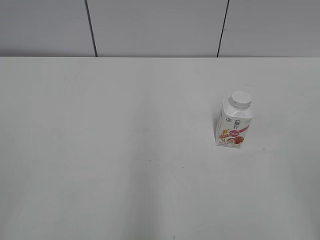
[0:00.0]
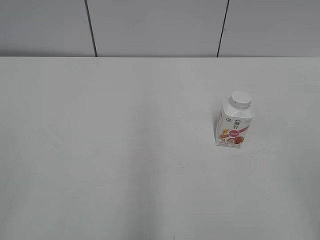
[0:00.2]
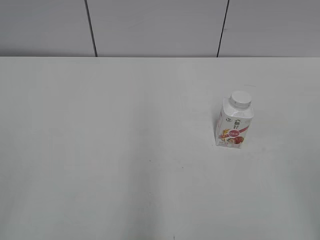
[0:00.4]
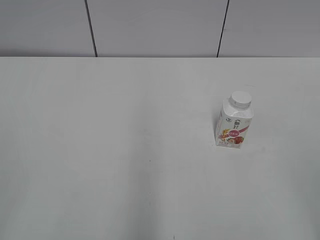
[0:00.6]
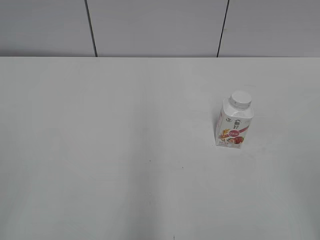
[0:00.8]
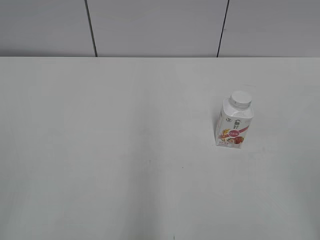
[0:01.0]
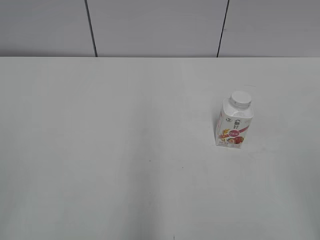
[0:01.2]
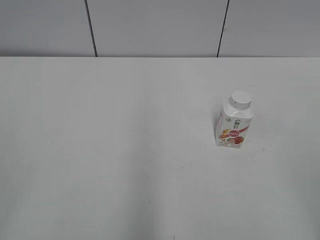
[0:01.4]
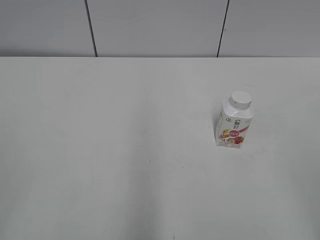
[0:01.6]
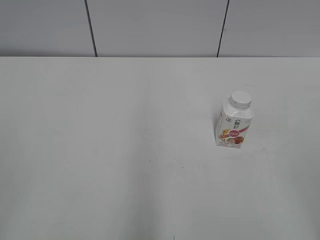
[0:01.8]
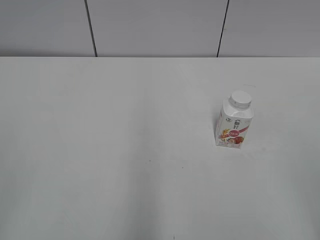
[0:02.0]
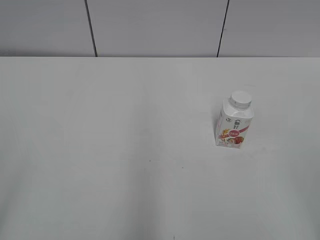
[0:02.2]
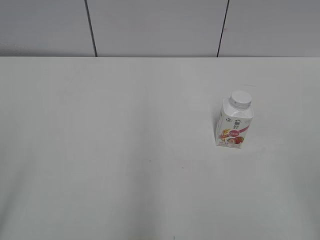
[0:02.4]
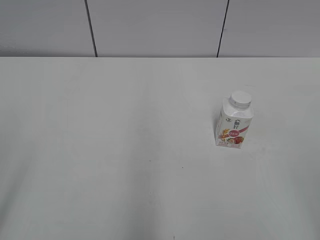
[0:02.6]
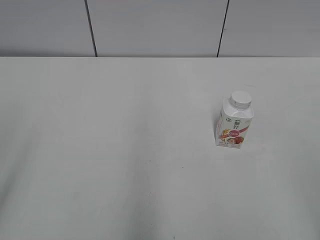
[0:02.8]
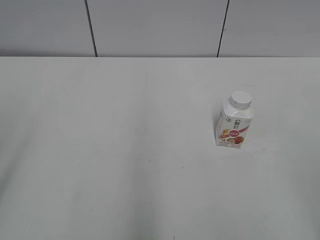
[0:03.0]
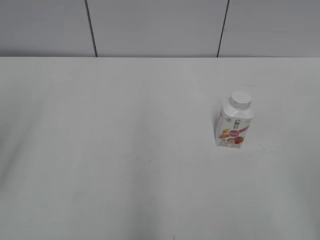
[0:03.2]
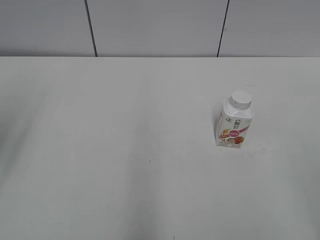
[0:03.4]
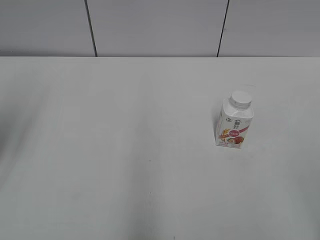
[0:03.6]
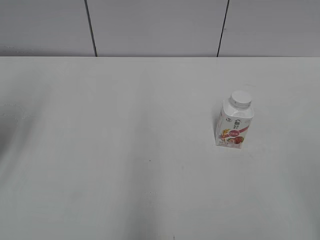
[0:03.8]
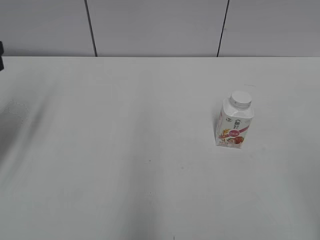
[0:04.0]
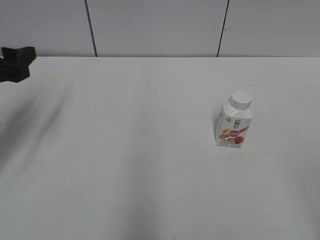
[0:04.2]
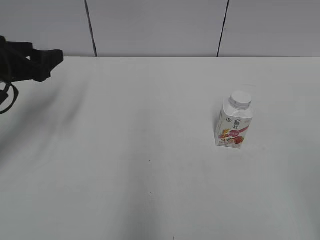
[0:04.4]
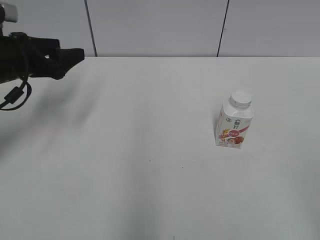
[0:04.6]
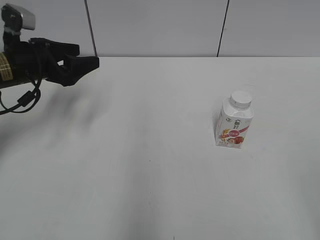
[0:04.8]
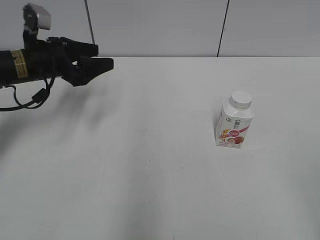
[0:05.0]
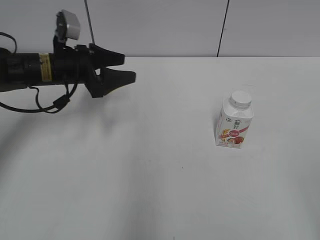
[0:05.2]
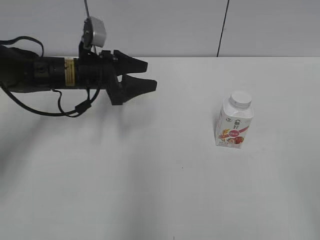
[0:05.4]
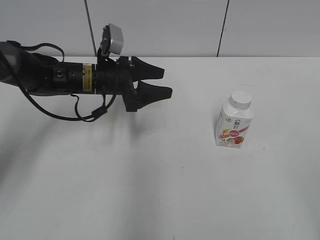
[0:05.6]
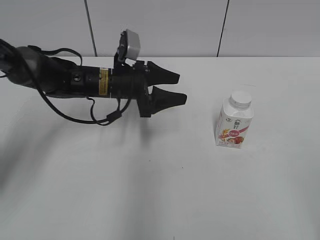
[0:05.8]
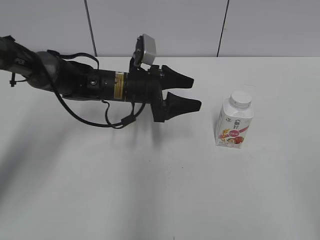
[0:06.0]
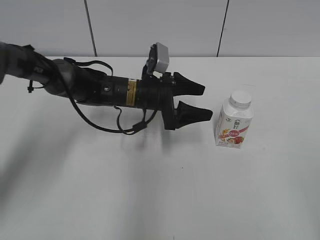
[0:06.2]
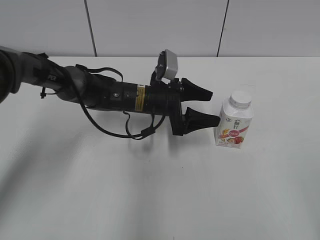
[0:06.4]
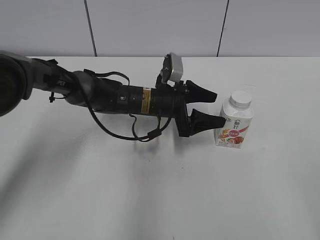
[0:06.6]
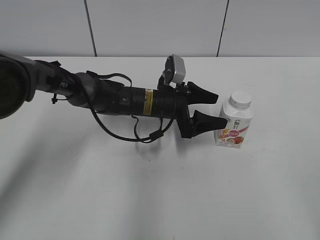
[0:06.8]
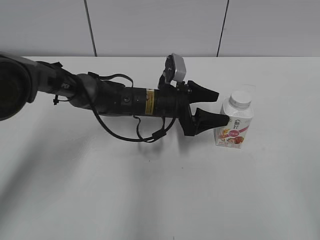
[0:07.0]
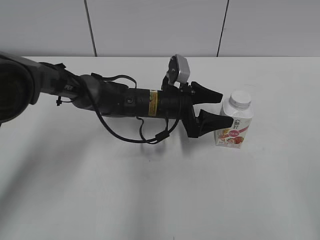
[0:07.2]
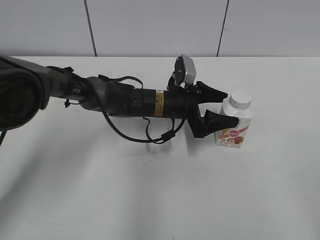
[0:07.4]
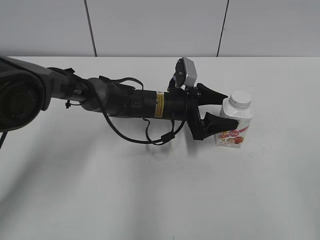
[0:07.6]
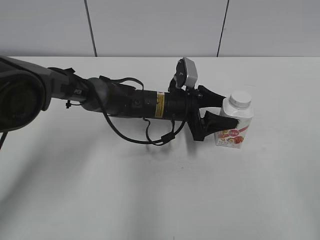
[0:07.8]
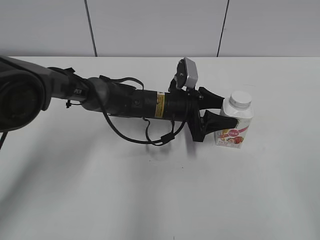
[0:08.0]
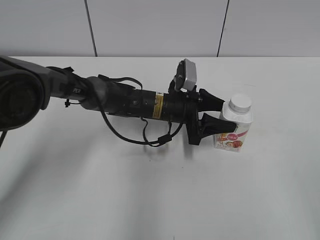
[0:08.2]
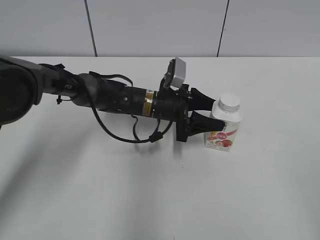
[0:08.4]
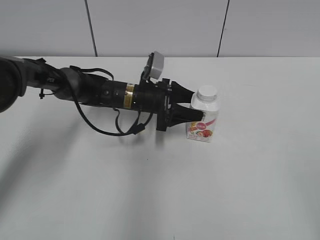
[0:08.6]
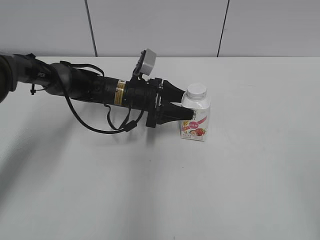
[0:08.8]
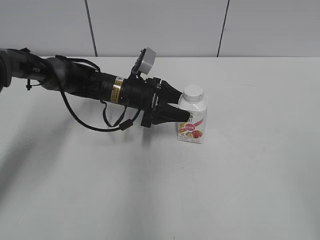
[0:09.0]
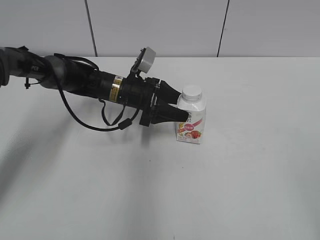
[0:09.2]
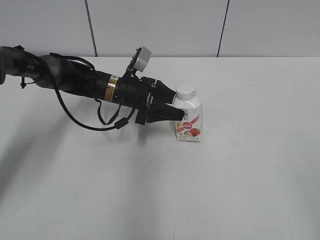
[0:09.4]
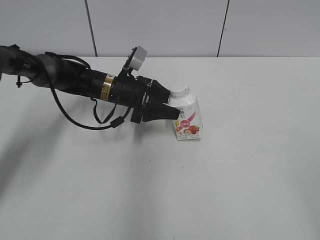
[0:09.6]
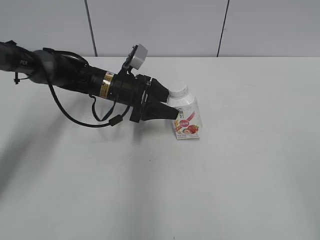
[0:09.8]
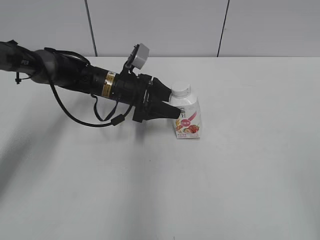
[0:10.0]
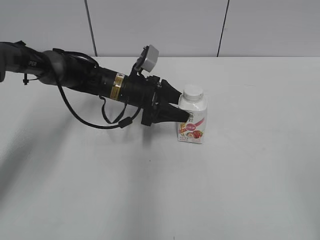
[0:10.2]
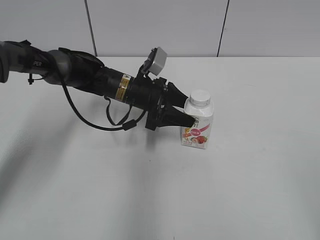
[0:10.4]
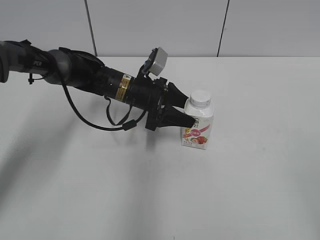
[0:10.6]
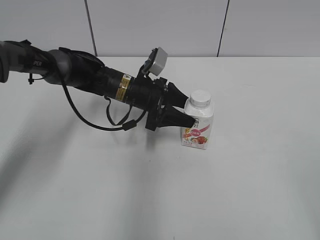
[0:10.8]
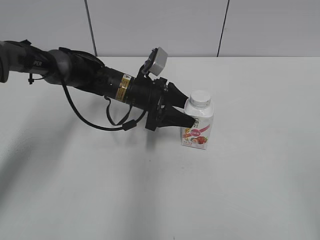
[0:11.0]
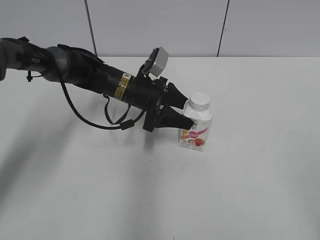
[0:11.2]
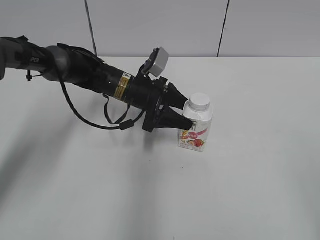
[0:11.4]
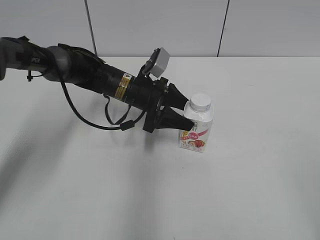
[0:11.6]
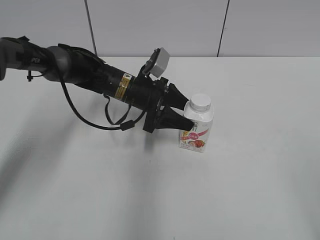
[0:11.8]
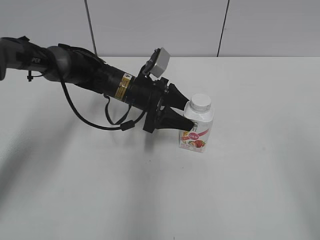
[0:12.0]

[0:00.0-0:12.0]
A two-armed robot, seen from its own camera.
Step, 0:00.0 to 0:07.8: Grab the Yili Changqing with the left hand.
Step, 0:08.0 to 0:10.8: Move the Yili Changqing from right to left.
0:03.0 to 0:04.4: The left gripper shifts some 25 cm forward and downward.
0:04.4 to 0:06.0: The left gripper shifts some 20 cm to the right and downward.
0:06.0 to 0:07.6: The left gripper is displaced to the right by roughly 10 cm.
0:07.6 to 0:09.0: The left gripper heads to the left, covering some 10 cm, and closes.
0:09.0 to 0:10.4: There are only small adjustments of the grippers.
0:10.4 to 0:12.0: The right gripper ends up approximately 5 cm from where it was.

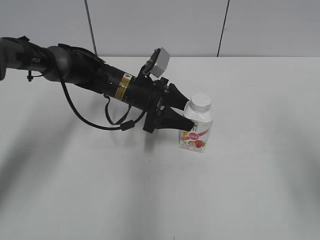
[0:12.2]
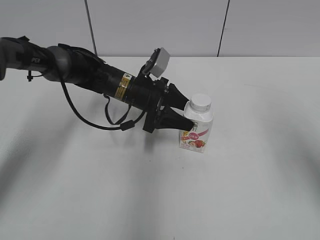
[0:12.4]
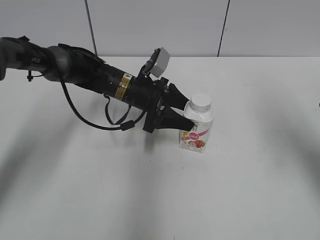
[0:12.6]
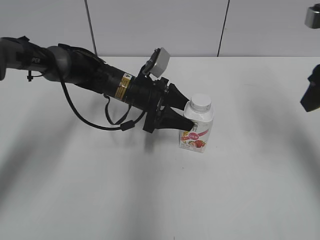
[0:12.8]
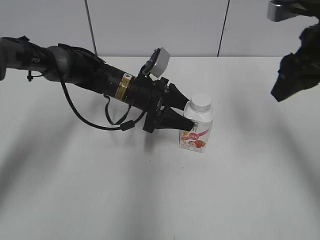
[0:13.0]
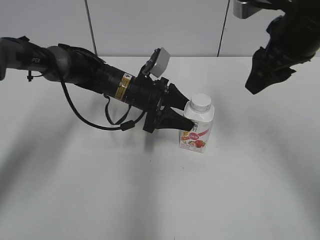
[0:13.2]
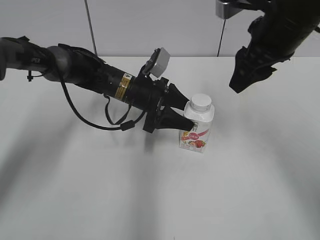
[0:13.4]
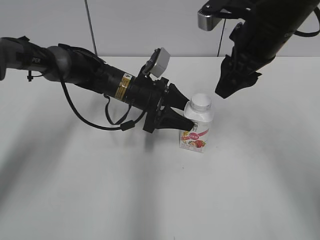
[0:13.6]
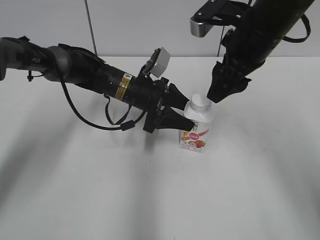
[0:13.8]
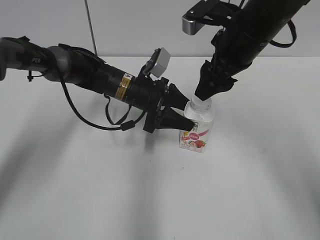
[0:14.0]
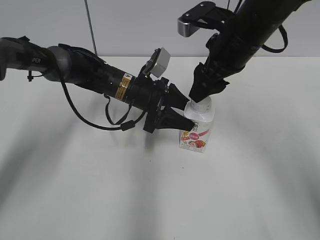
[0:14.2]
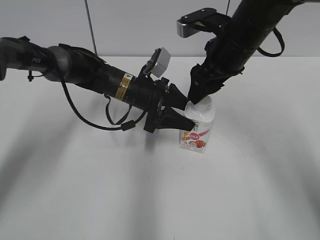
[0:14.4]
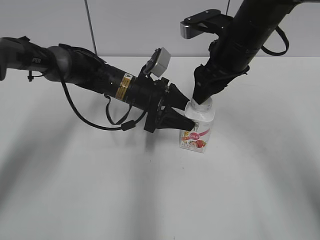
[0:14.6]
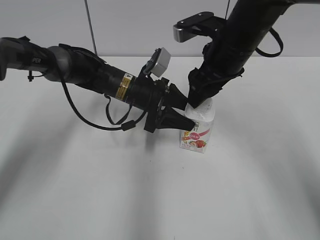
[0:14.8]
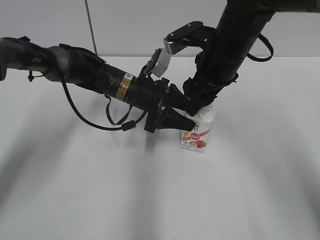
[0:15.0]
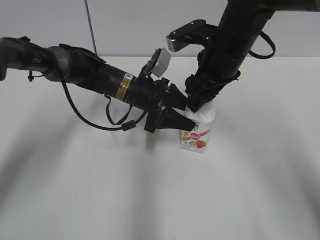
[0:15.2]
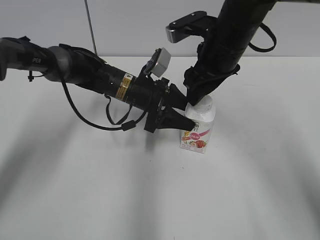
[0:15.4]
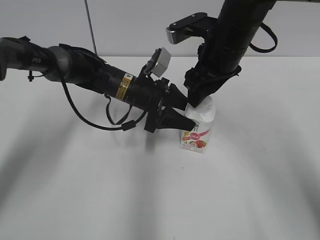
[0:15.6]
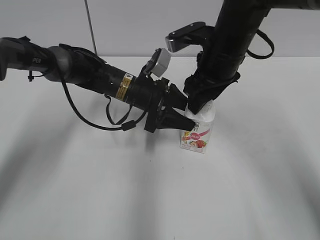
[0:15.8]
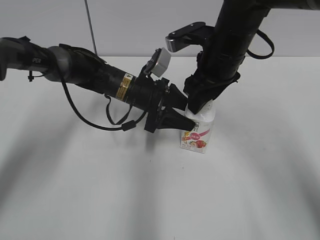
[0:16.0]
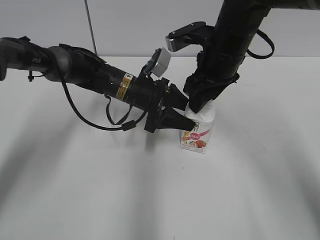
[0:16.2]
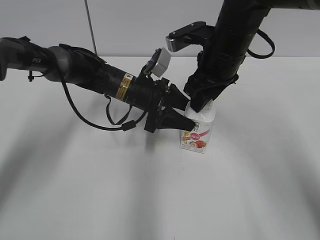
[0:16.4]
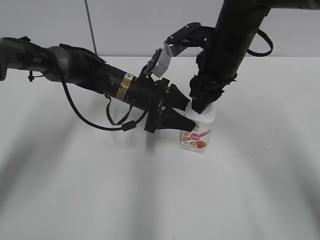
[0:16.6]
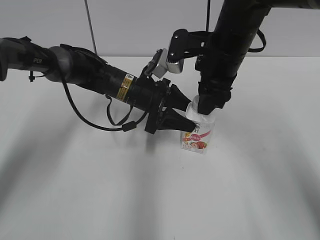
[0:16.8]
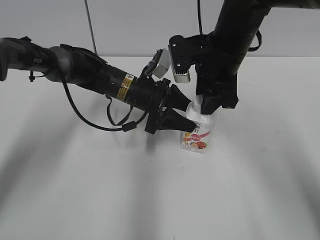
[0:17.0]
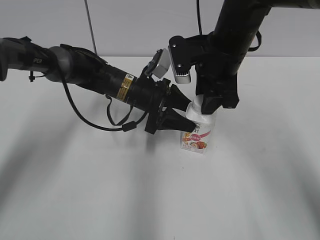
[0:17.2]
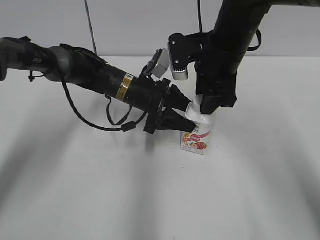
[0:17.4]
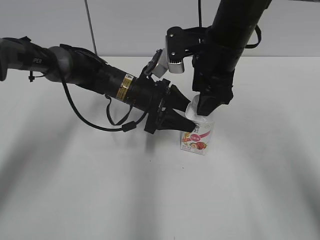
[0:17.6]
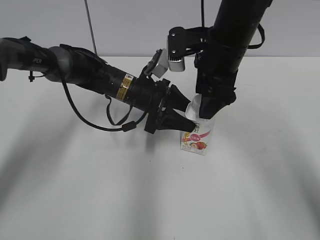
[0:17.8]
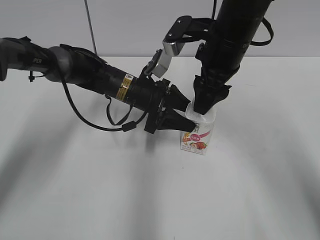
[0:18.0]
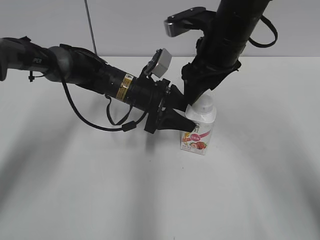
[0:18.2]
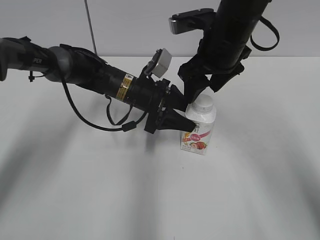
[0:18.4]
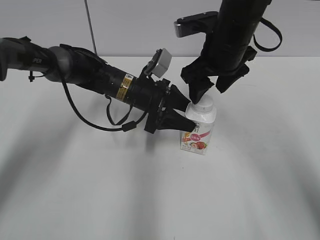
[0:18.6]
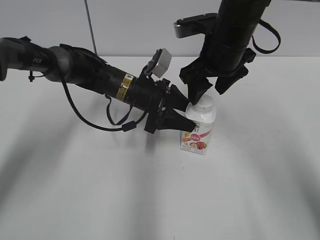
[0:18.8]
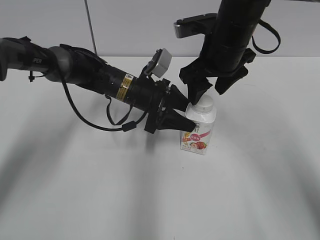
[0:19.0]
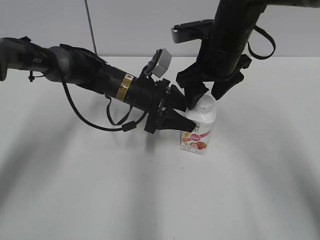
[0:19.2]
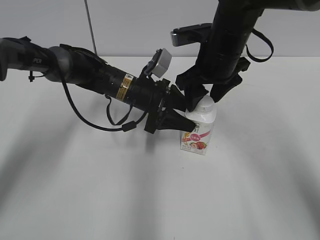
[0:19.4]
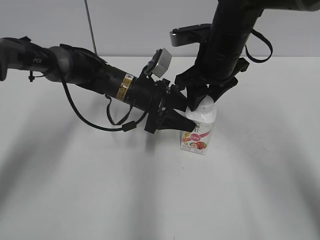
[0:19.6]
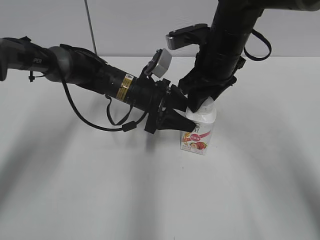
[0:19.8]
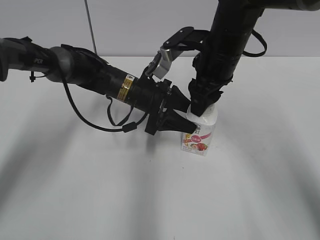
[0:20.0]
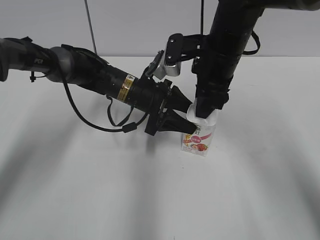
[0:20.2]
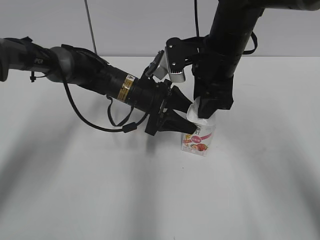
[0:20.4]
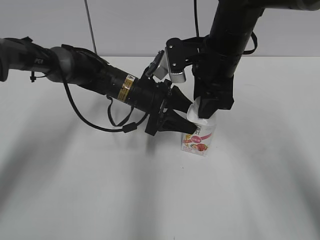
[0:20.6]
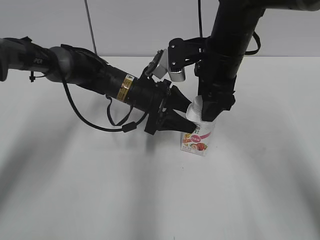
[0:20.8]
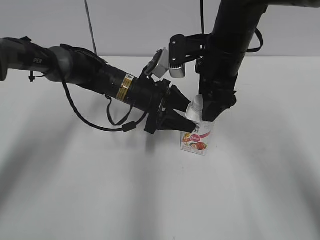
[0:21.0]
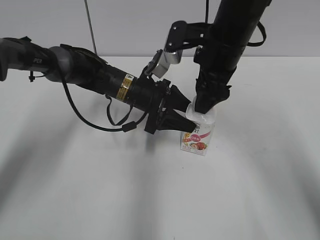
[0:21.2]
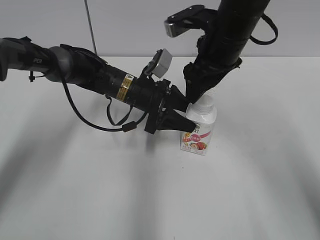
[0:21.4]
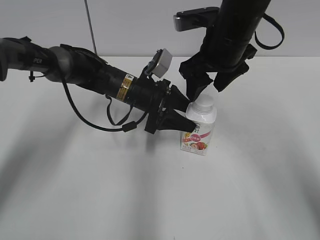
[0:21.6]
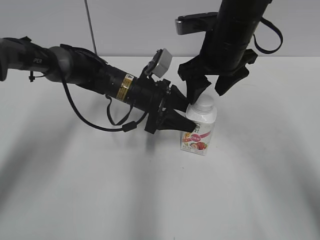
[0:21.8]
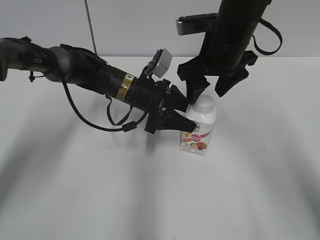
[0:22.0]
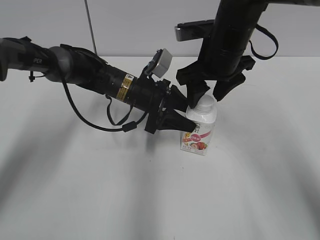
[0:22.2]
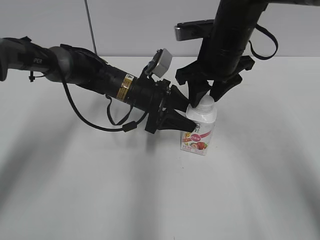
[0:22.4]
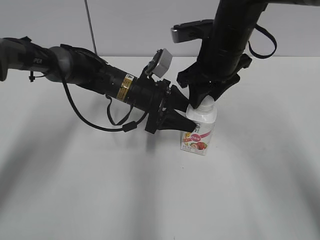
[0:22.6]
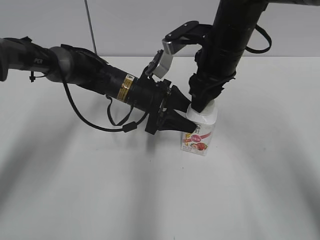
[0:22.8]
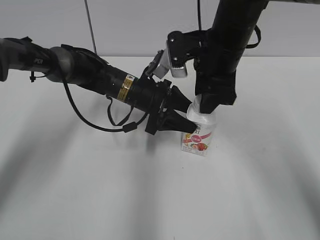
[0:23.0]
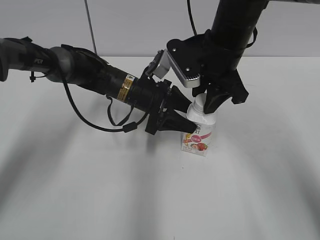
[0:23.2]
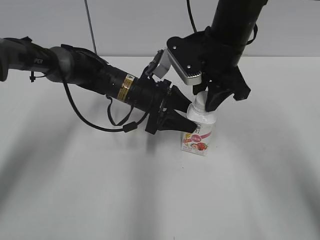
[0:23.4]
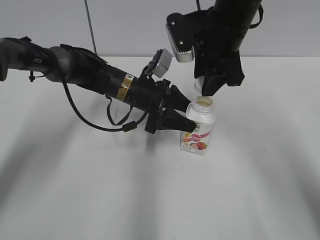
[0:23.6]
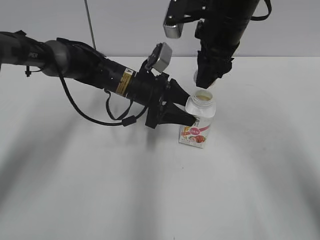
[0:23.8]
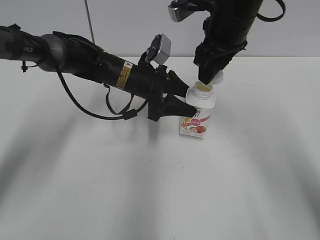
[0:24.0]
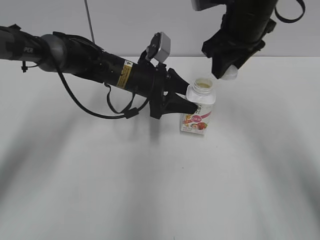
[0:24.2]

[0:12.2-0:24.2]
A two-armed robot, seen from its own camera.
0:12.2 to 0:13.8: The right gripper heads forward and to the left, covering about 25 cm, and closes, then reopens.
0:13.8 to 0:15.2: The right gripper moves some 5 cm.
0:15.2 to 0:16.6: The right gripper closes.
0:16.6 to 0:18.2: The right gripper opens its fingers.
0:18.2 to 0:19.8: The right gripper closes up.
0:19.8 to 0:21.2: The right gripper opens its fingers.
0:21.2 to 0:22.6: The right gripper closes its fingers.
0:22.6 to 0:24.2: The right gripper changes place by approximately 5 cm.
